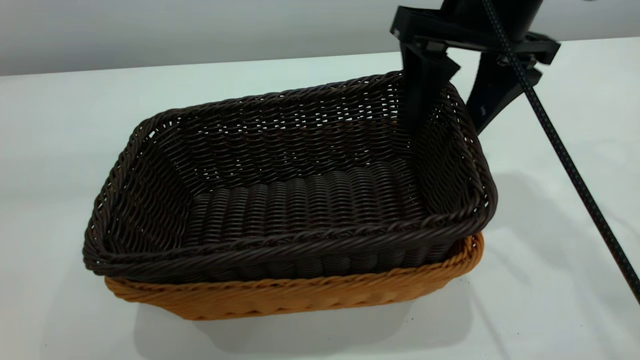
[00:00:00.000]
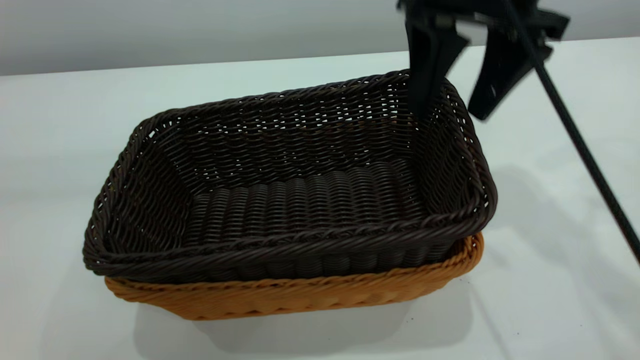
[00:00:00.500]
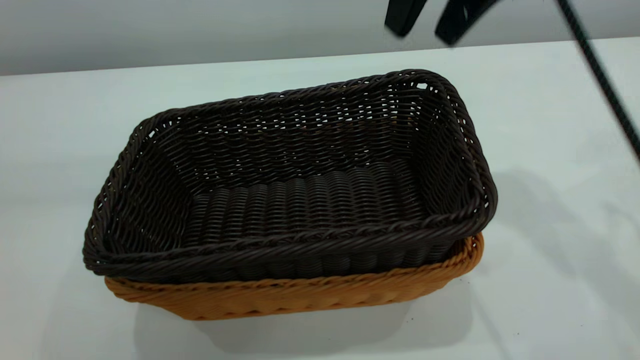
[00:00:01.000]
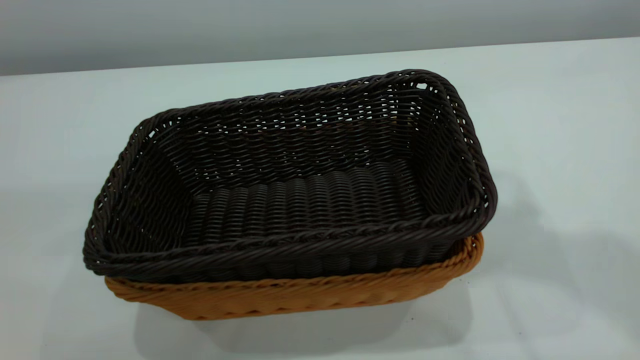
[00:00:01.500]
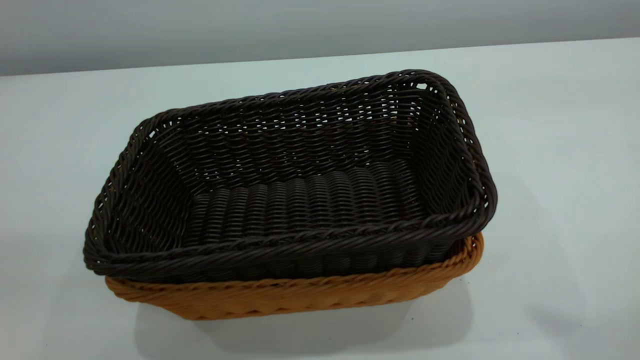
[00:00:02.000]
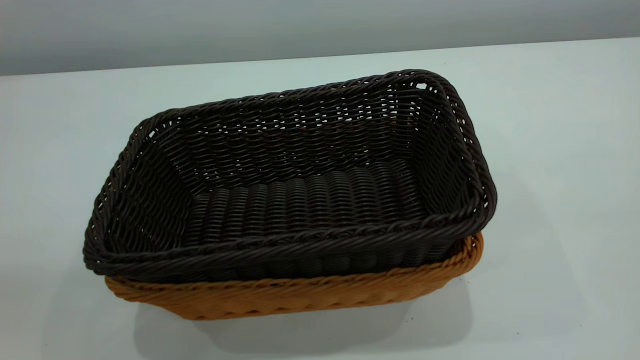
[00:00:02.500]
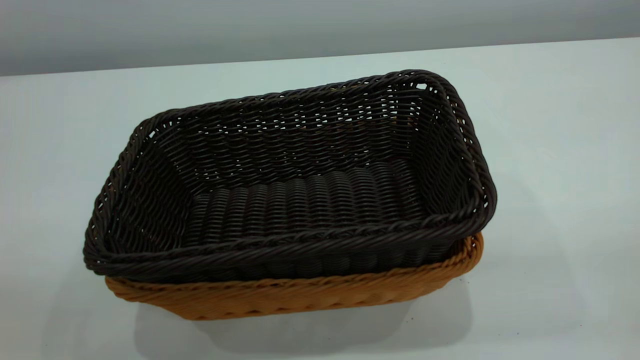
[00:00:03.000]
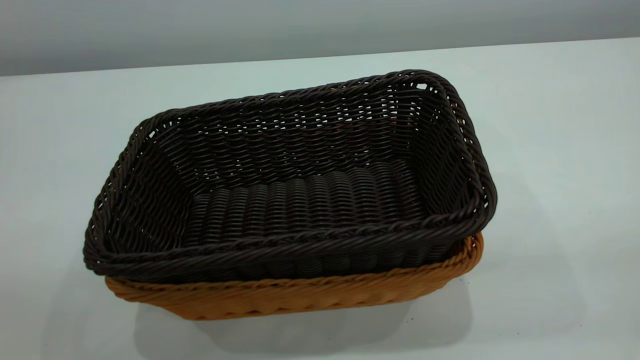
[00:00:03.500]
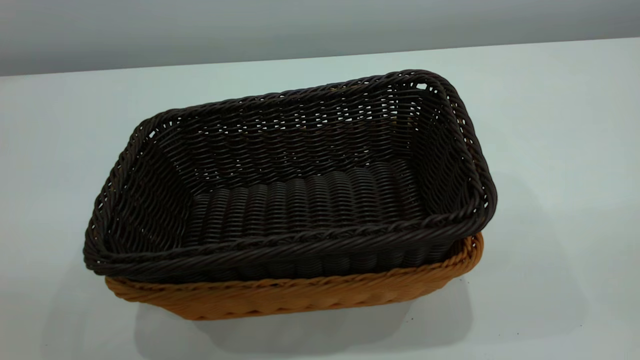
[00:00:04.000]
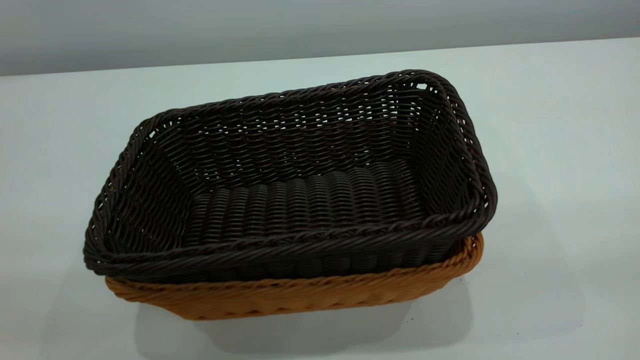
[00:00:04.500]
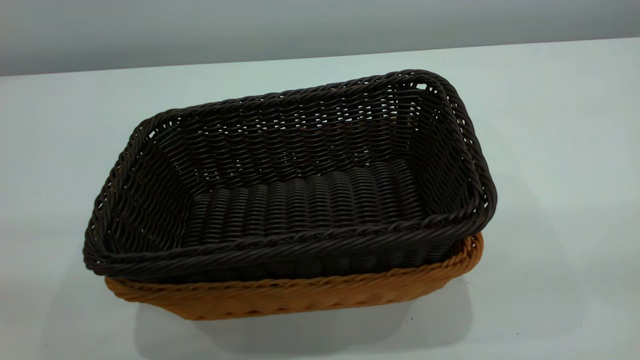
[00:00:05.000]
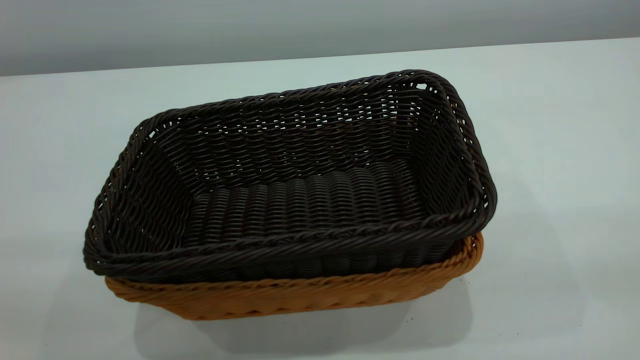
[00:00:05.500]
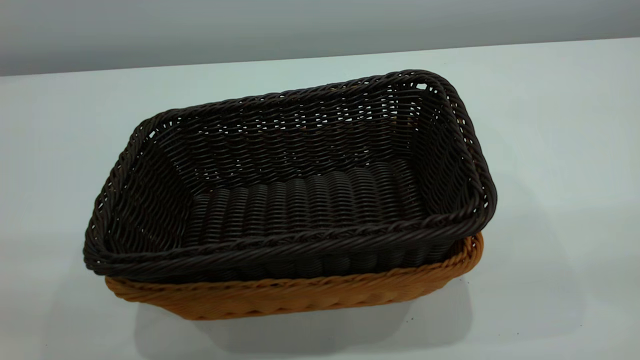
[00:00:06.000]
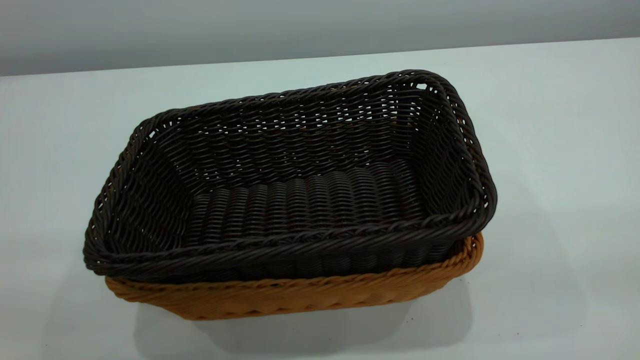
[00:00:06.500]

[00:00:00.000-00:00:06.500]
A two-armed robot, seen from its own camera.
Task of the whole recording: the left gripper grasp the brown basket and place it in the center of the table, the right gripper grasp the black basket and place it inside the brown one.
00:00:00.000 to 00:00:02.000: The right gripper heads upward and backward, covering approximately 35 cm, and closes; the left gripper heads to the left and backward, covering some 15 cm, and closes its fingers.
